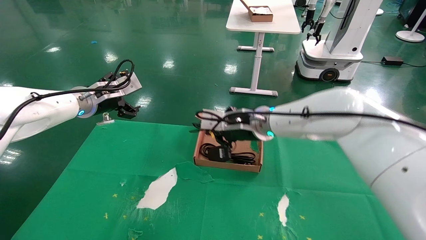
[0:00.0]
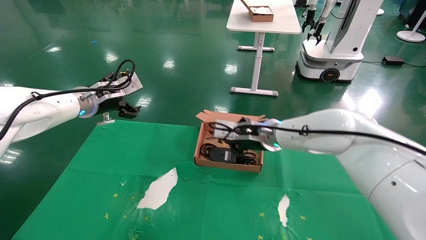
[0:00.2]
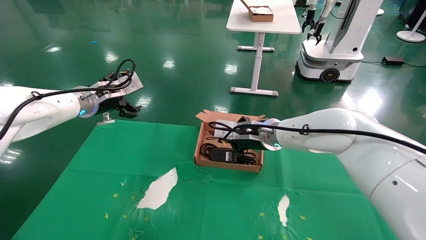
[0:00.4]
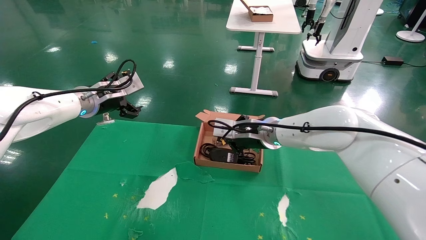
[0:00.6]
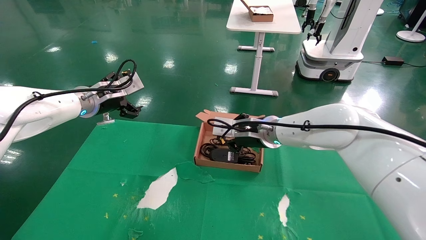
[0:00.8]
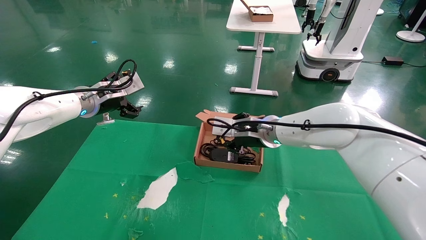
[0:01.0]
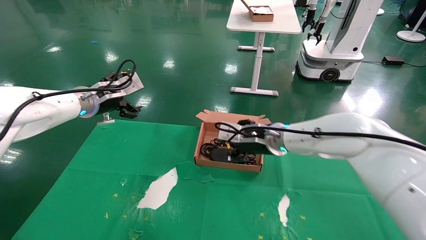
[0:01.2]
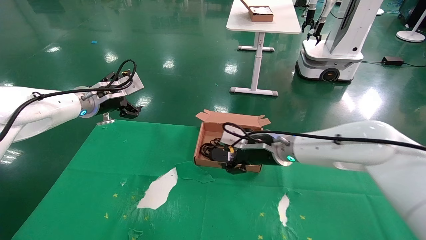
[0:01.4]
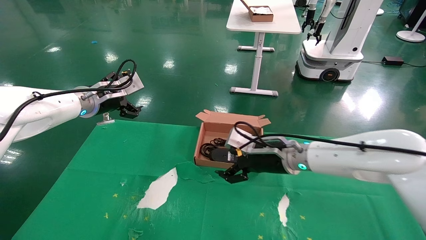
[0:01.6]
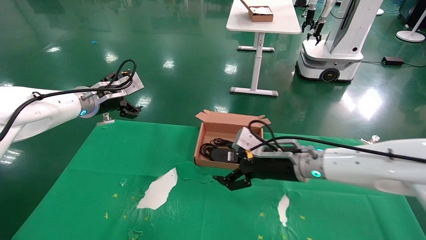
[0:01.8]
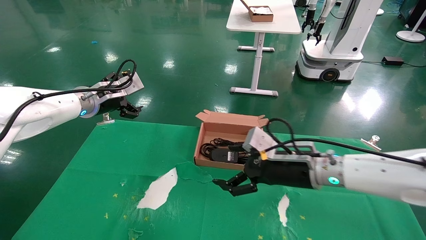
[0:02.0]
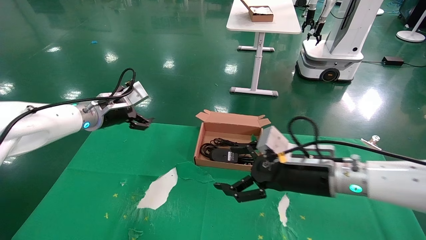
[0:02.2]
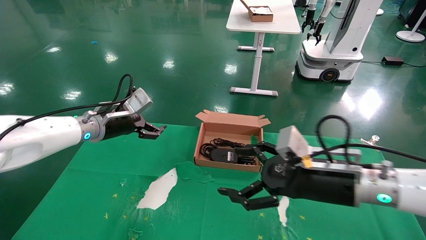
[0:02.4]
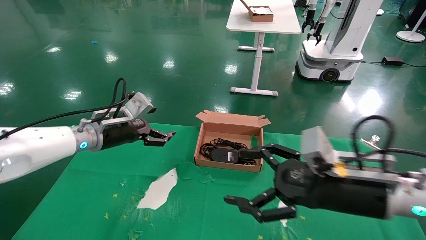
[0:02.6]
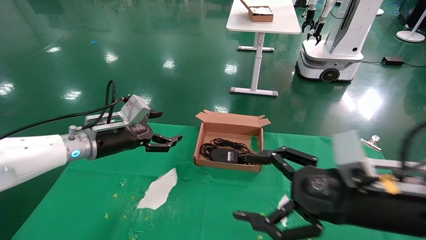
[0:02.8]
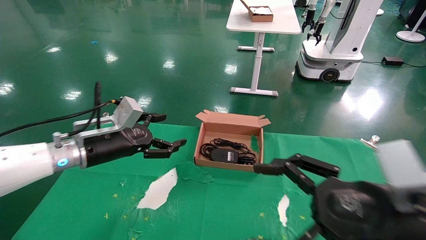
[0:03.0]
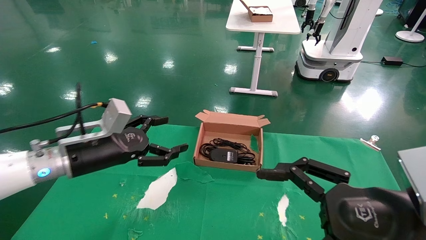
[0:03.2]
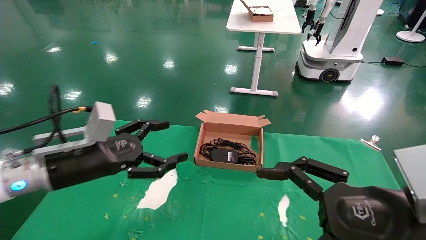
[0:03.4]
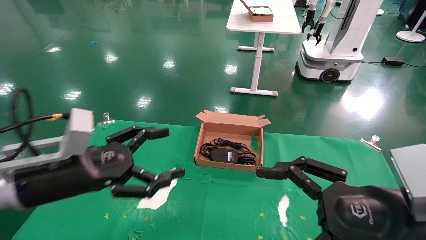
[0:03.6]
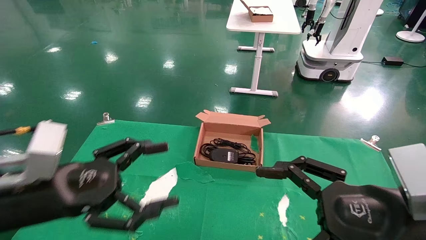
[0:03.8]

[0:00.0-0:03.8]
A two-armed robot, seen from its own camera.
0:00.0 to 0:01.2: The right gripper changes place by some 5 cm, and opens.
0:01.2 to 0:02.6: The right gripper goes some 20 cm backward and to the right, and opens up; the left gripper shifts approximately 5 cm downward.
0:02.6 to 0:03.8: The right gripper shifts some 10 cm backward. Meanwhile the left gripper heads backward, covering some 20 cm.
